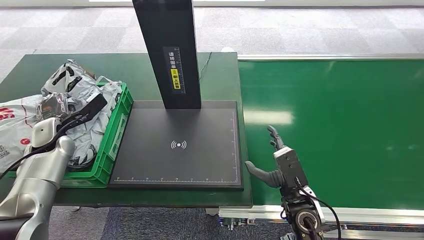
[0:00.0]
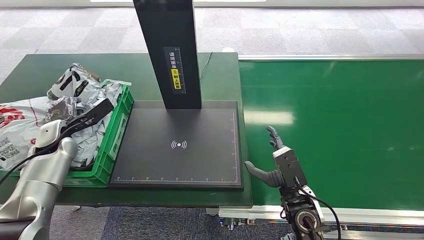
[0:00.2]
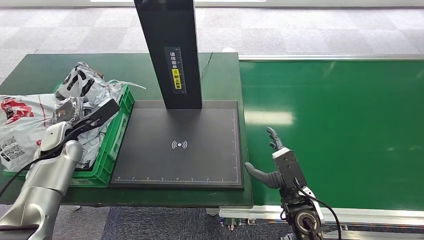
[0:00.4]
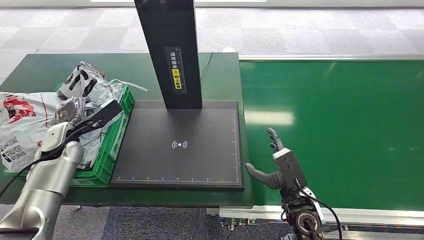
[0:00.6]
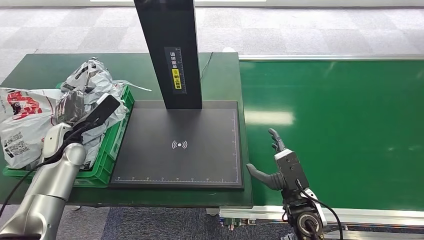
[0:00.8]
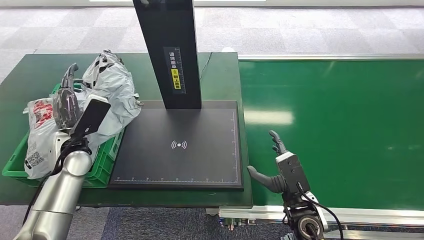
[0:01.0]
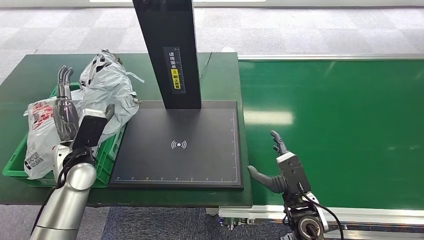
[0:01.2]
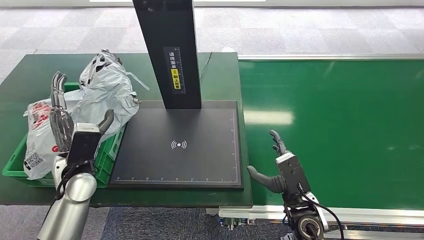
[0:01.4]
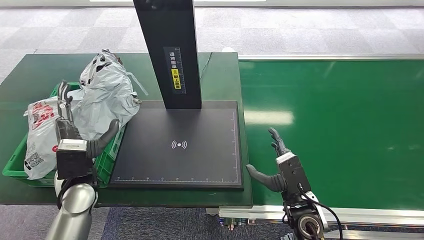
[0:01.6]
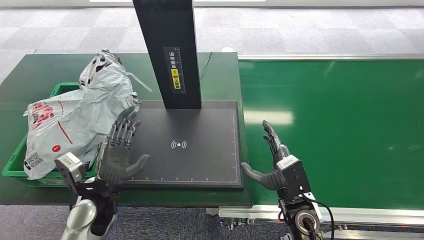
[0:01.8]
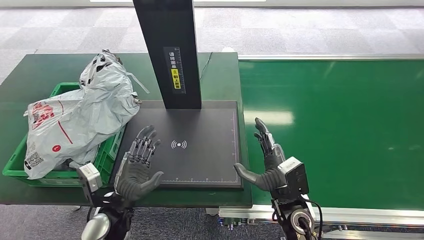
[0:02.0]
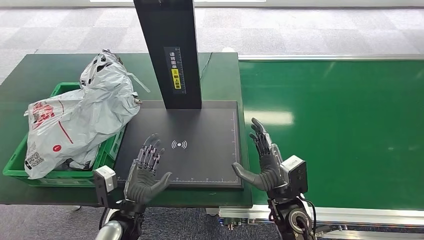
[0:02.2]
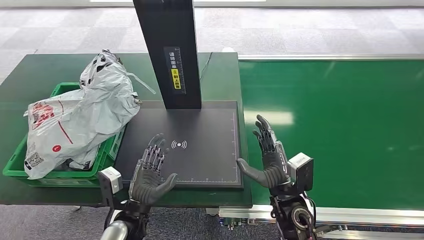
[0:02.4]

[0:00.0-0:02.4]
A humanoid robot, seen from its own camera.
Task of the whole recording: Weigh the package on the weighing device and place it in the left basket.
0:00.0 to 0:01.2: The left hand heads to the right and backward, covering some 15 cm.
0:01.2 to 0:02.4: The left hand shifts about 20 cm to the right, backward and downward.
